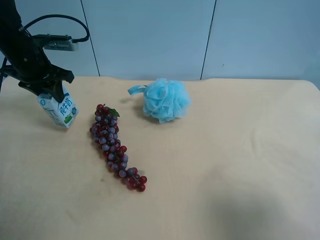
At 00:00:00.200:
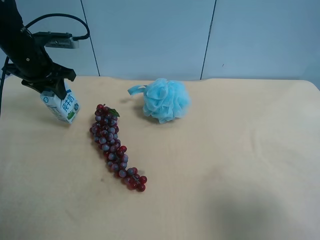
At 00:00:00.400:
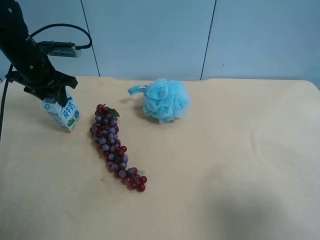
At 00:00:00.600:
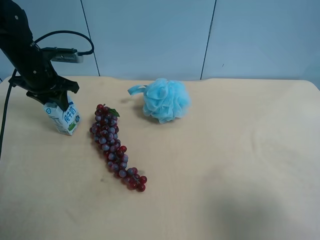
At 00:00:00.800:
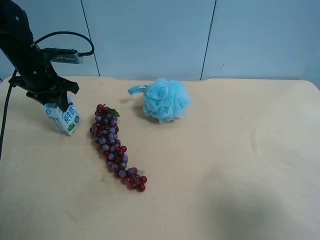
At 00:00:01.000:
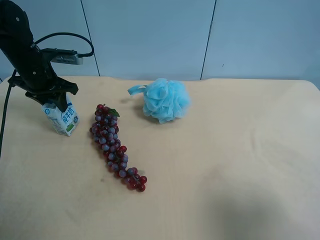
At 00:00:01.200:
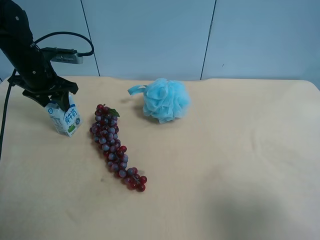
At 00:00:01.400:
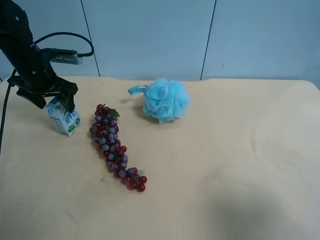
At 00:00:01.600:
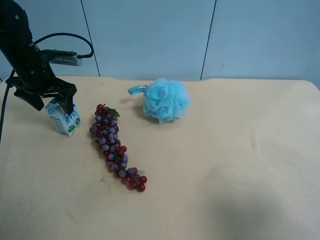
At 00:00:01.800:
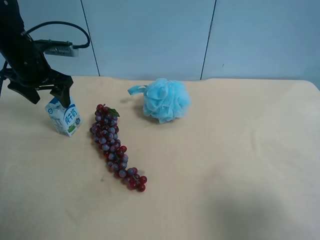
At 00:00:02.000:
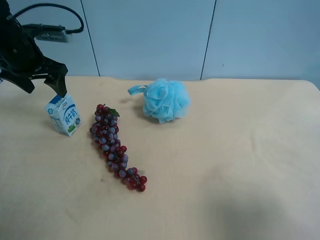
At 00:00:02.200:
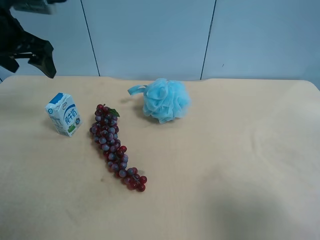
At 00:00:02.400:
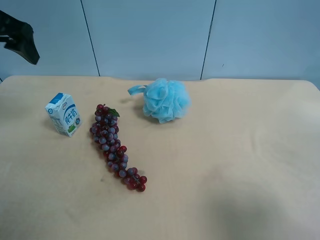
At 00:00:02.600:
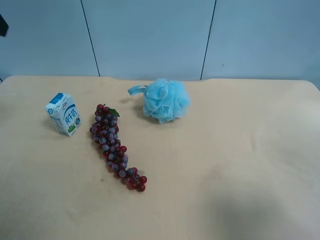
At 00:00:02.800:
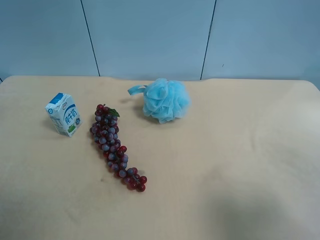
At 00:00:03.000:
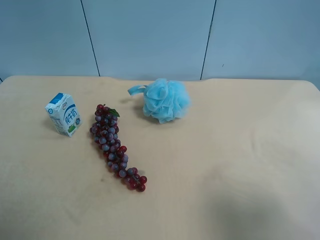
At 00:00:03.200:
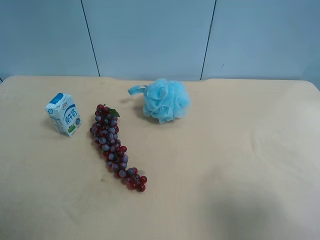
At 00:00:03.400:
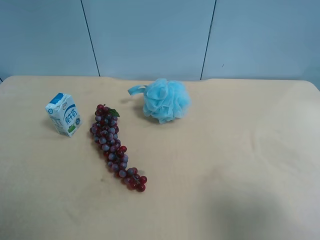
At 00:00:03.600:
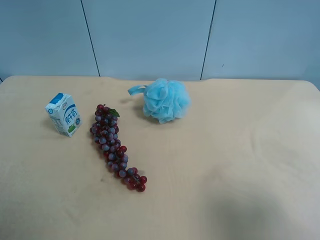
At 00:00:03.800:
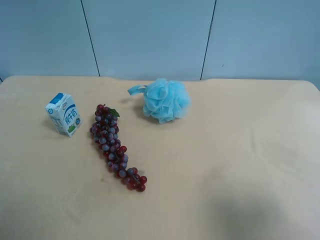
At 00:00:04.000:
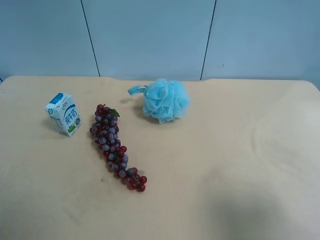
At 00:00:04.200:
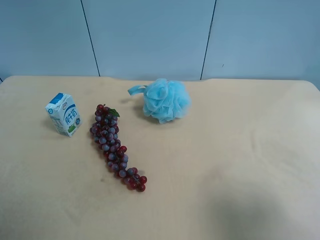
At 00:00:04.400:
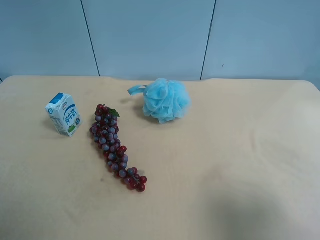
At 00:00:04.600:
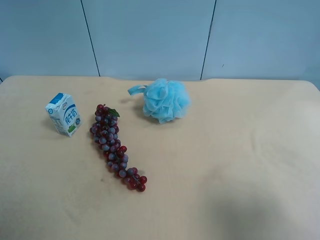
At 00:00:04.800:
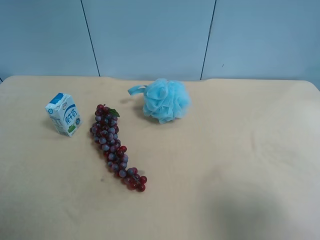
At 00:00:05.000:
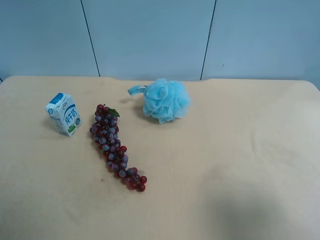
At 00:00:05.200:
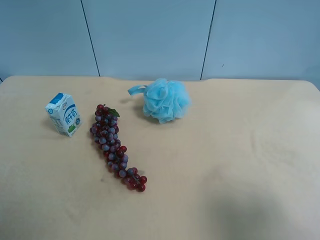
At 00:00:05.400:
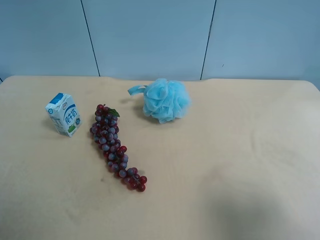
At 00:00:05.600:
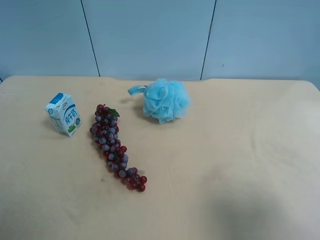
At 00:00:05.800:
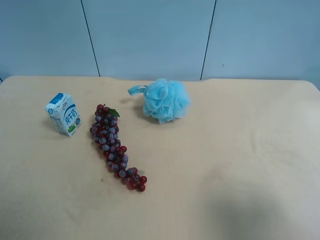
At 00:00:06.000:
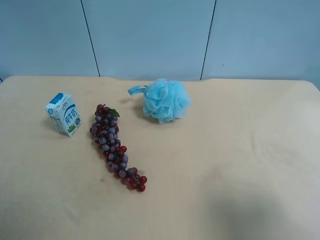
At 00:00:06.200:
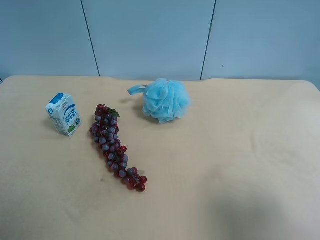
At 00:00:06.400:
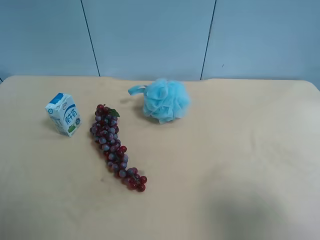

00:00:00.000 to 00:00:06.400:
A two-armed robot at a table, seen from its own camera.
Task of the whole recording: use the right gripper to pick up the item and transfer it from the right gripper to the left gripper.
00:00:00.000 to 00:00:01.600: The left gripper opens its fingers.
00:00:01.600 to 00:00:03.200: The left gripper heads backward and upward, covering some 35 cm.
